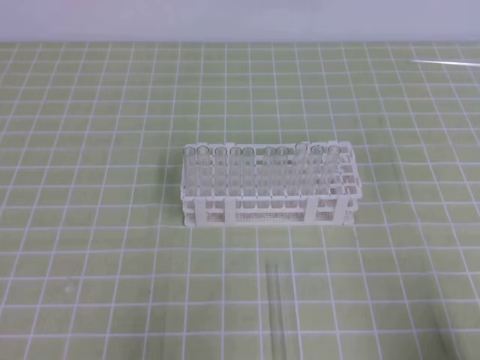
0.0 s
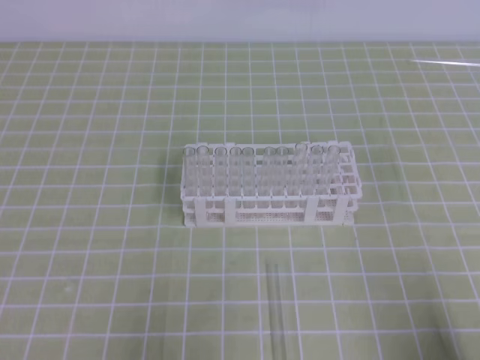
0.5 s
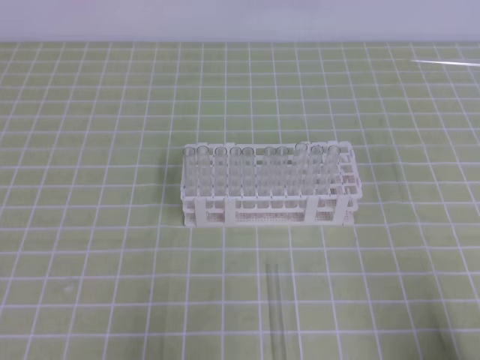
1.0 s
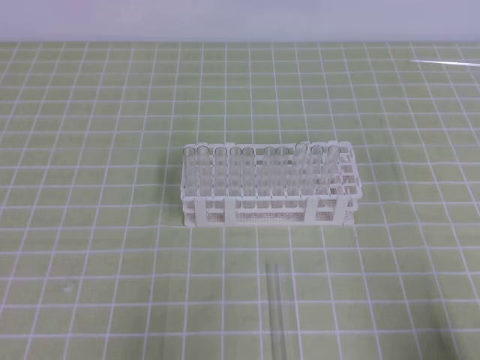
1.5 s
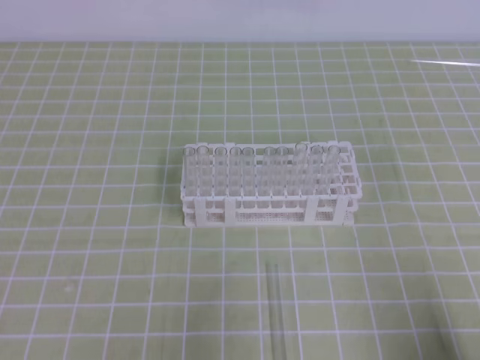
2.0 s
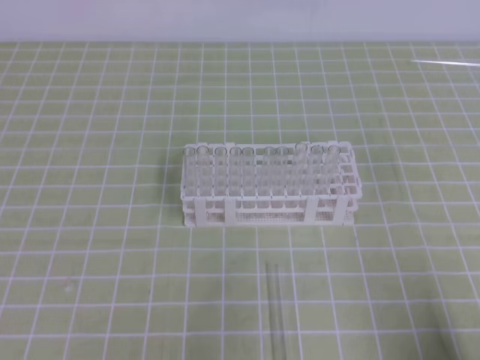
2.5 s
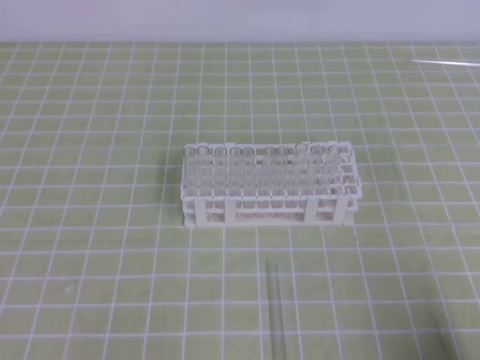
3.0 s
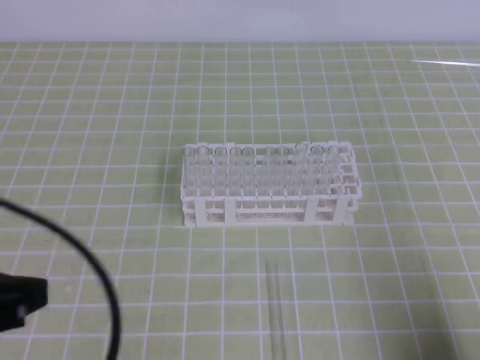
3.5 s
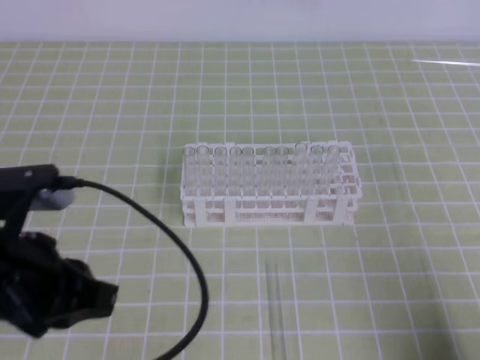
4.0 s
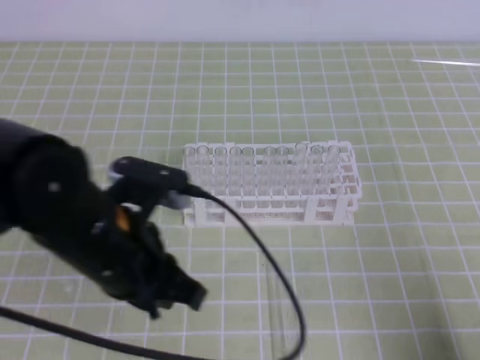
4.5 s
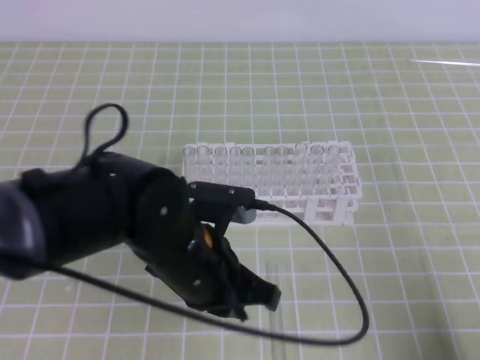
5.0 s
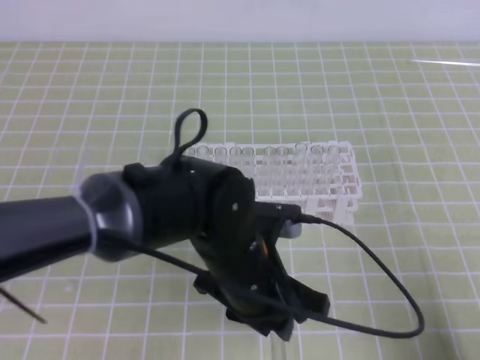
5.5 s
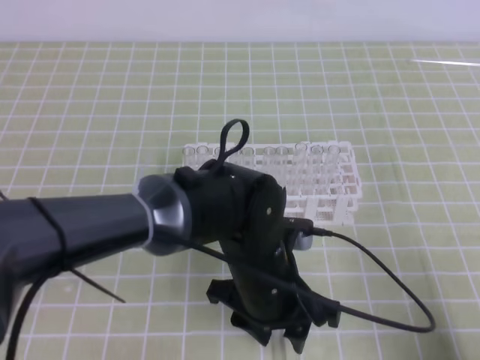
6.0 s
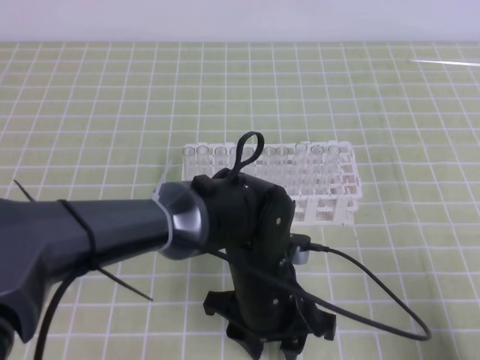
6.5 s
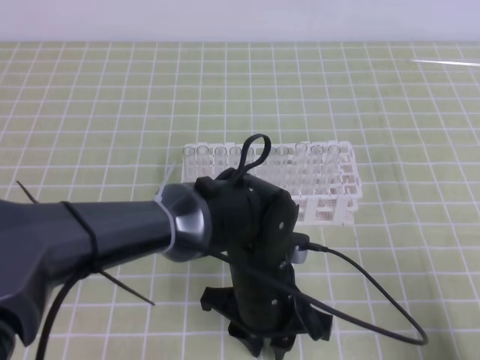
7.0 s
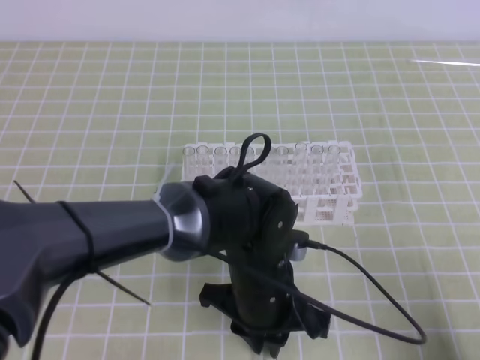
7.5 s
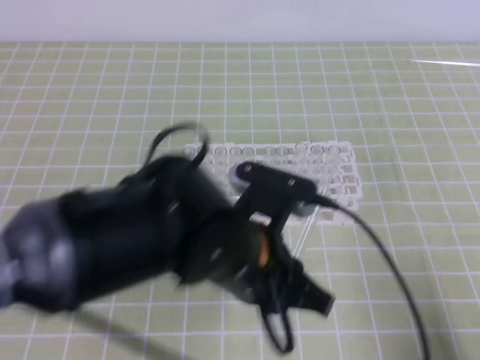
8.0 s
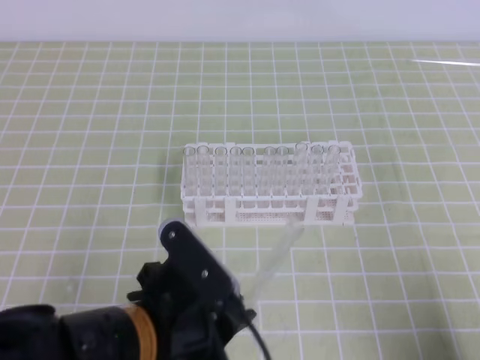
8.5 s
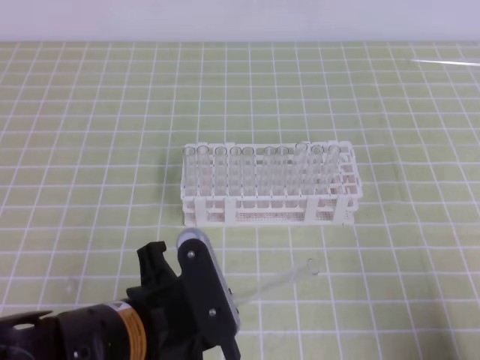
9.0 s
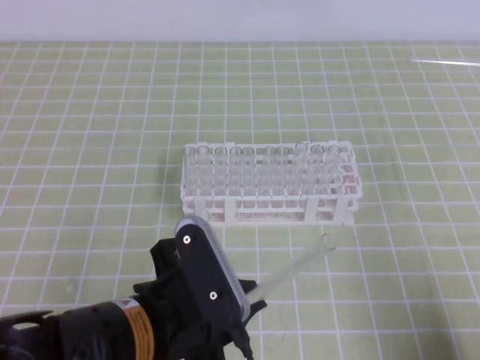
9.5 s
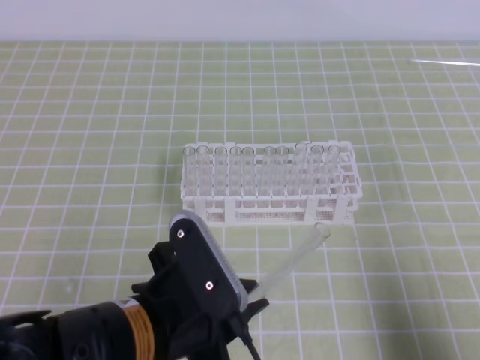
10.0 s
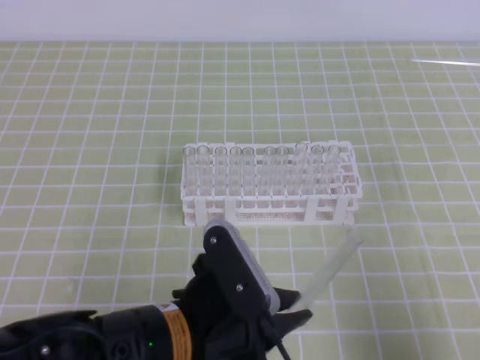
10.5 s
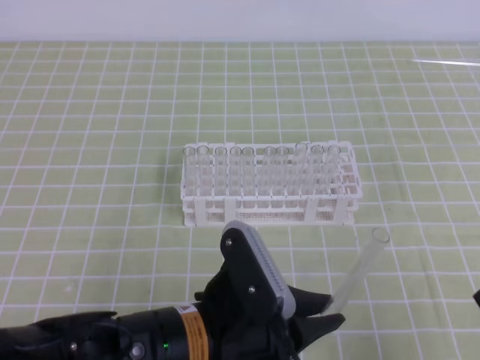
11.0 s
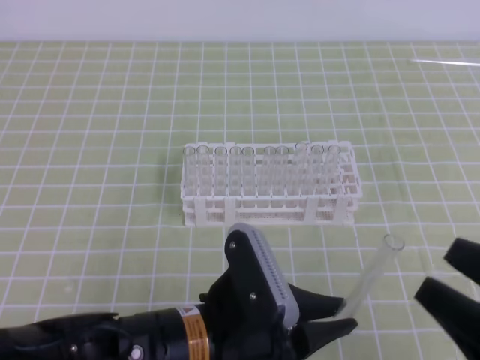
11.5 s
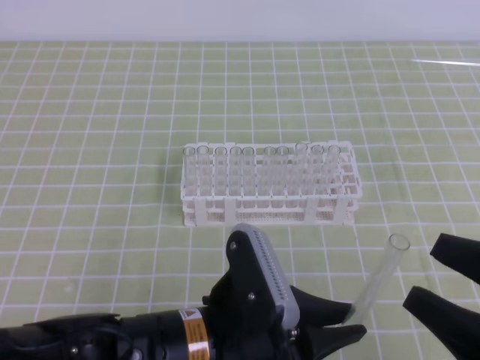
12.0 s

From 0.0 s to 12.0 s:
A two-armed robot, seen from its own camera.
From 2.0 s to 4.0 s: The left gripper is displaced upward, forward and to the right by approximately 15 cm.
From 4.0 s to 6.0 s: The left gripper is displaced to the right and downward by about 25 cm, and opens up.
From 6.0 s to 8.0 s: The left gripper shifts about 5 cm upward, and closes its fingers.
From 8.0 s to 10.0 s: The left gripper shifts some 10 cm to the left and backward.
From 10.0 s to 12.0 s: The right gripper shifts approximately 10 cm to the left and upward, and opens.

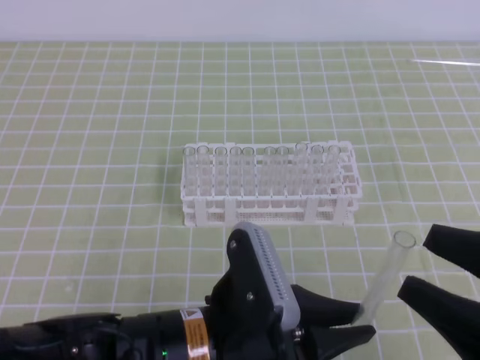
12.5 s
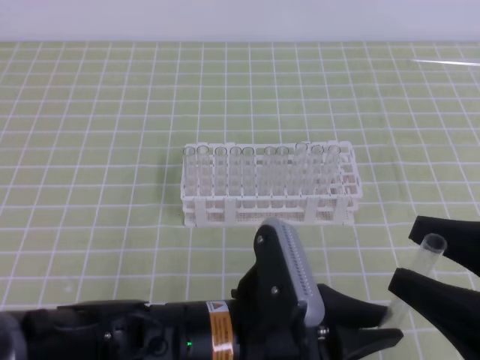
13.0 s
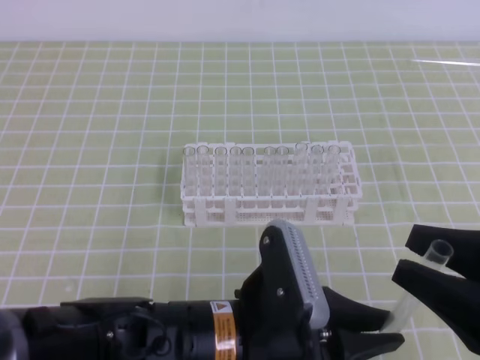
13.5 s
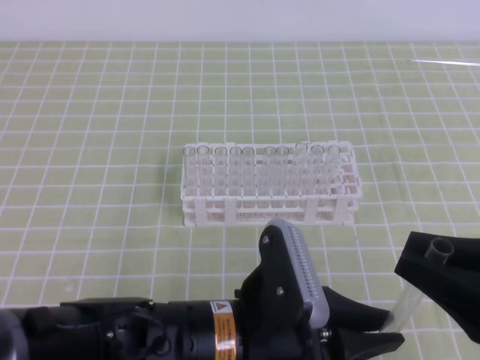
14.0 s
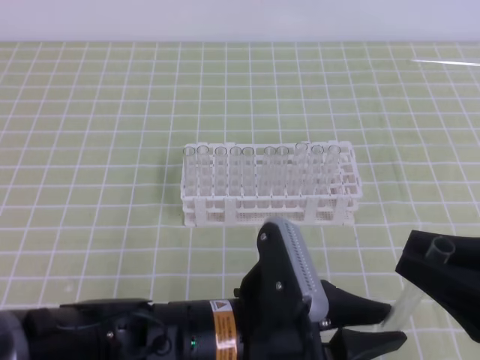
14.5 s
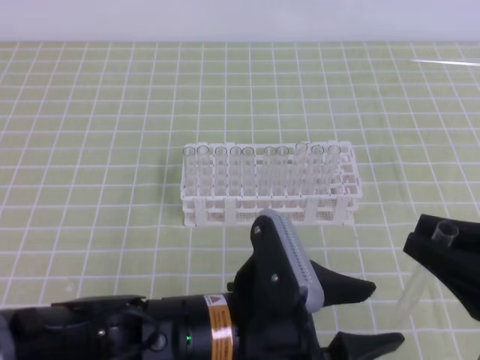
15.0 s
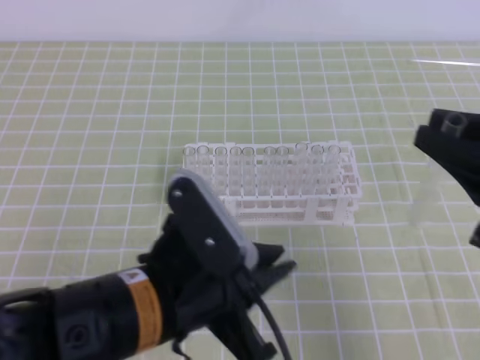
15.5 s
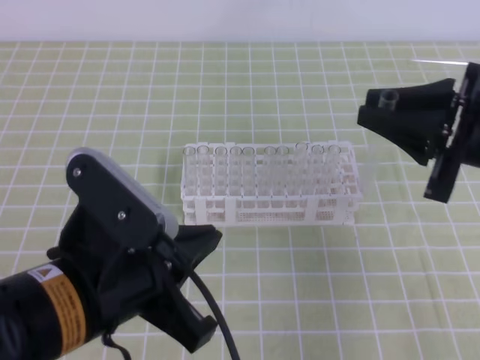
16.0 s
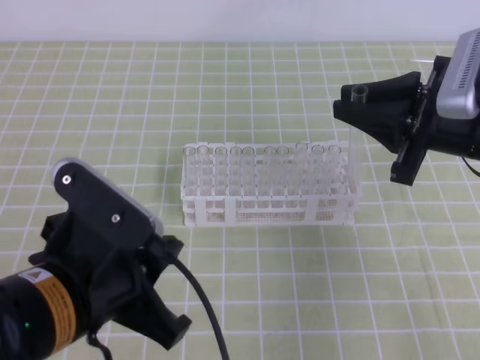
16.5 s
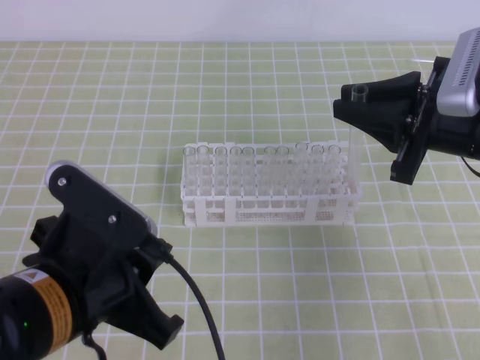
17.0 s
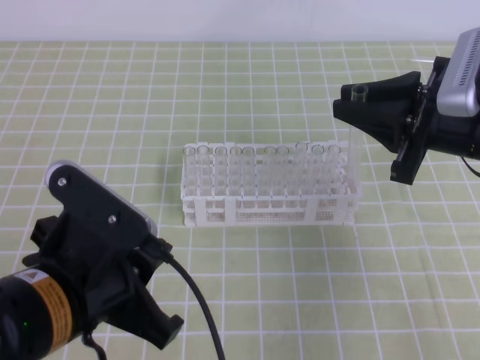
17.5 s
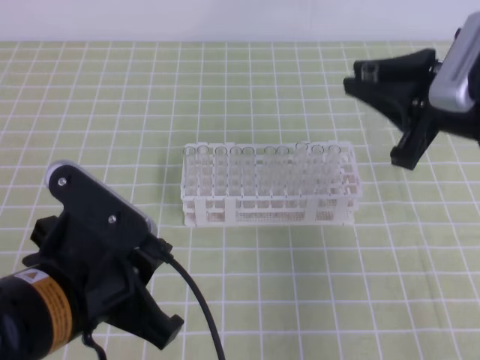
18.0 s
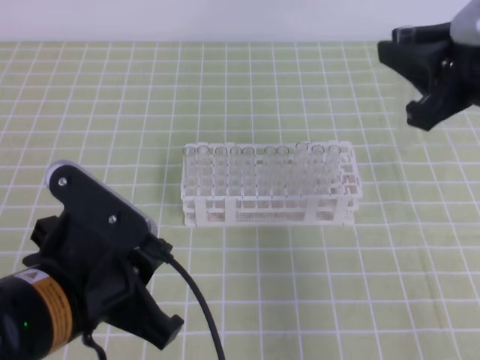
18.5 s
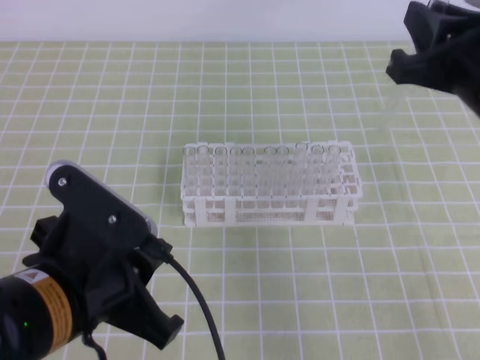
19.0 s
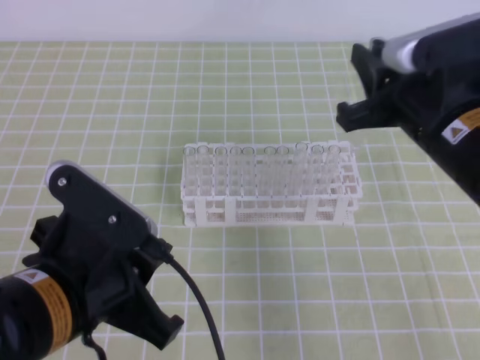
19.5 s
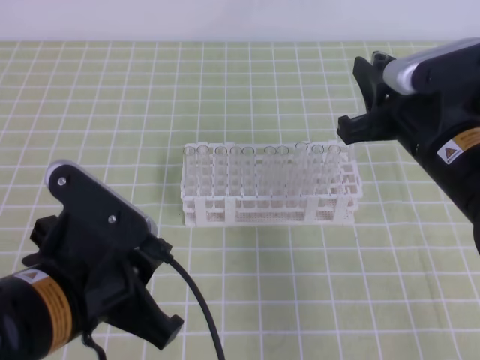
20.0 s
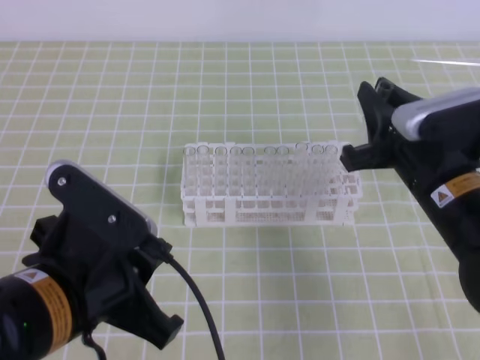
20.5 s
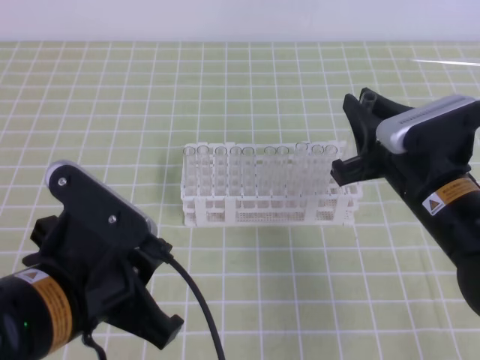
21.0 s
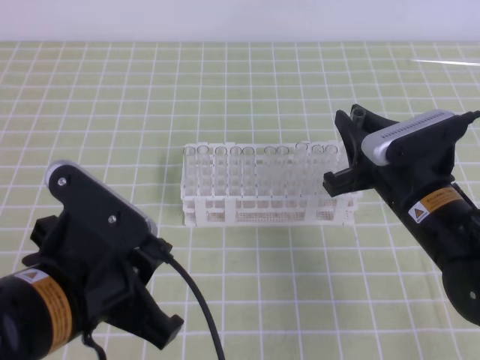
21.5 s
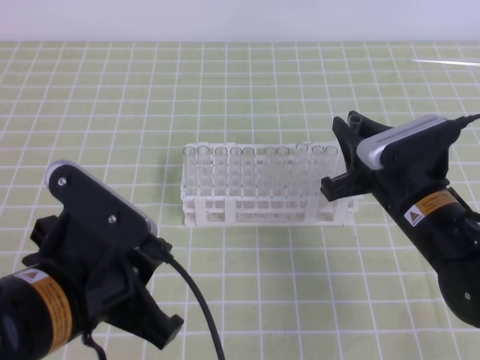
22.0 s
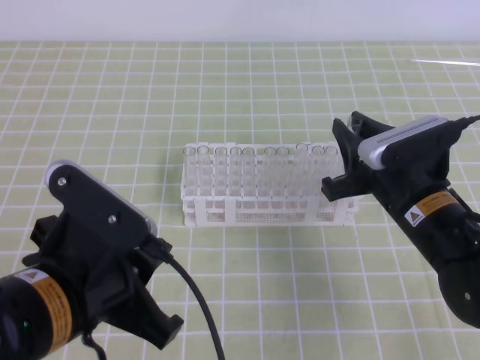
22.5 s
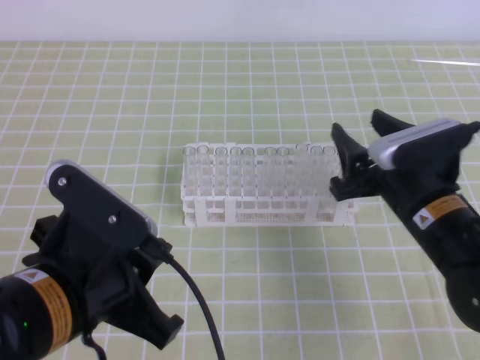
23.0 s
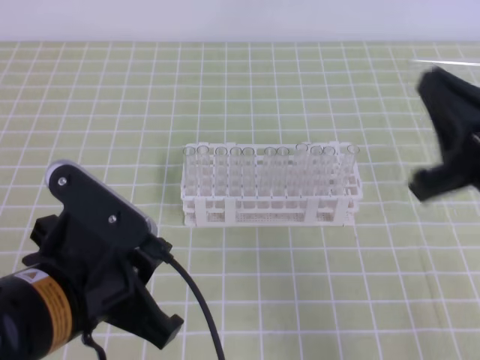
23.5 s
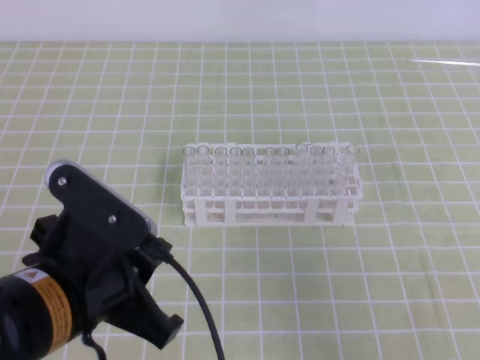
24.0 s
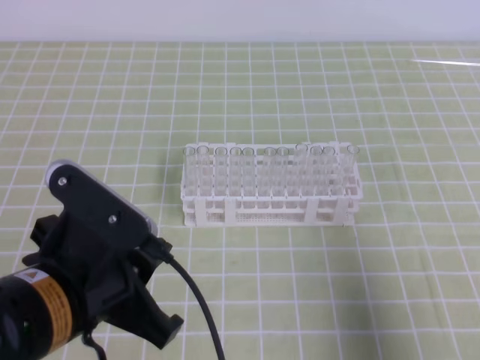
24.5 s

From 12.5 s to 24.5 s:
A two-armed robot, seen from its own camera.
From 12.5 s to 14.5 s: The right gripper closes its fingers; the left gripper opens.
From 14.5 s to 16.5 s: The left gripper goes about 15 cm to the left and upward, and closes its fingers. Meanwhile the right gripper heads forward, covering some 20 cm.
From 16.5 s to 18.5 s: The right gripper heads upward, covering some 5 cm.
From 18.5 s to 20.5 s: The right gripper goes some 10 cm downward.
From 20.5 s to 22.5 s: The grippers stay close to where they were, moving slightly.
From 22.5 s to 24.5 s: The right gripper goes approximately 25 cm backward, to the right and upward, and closes.

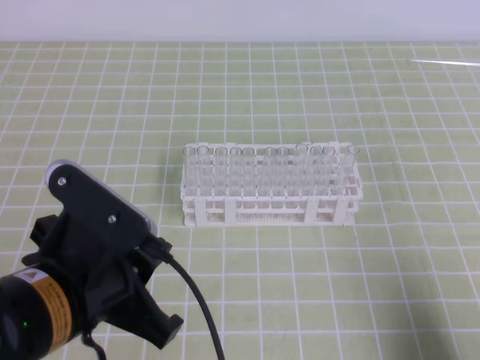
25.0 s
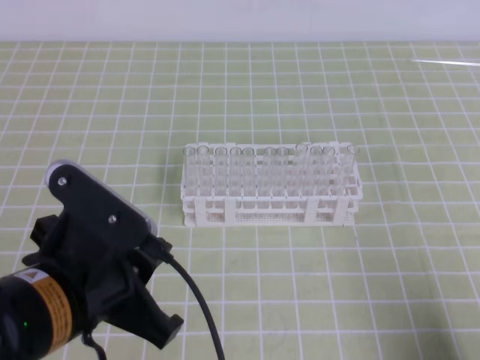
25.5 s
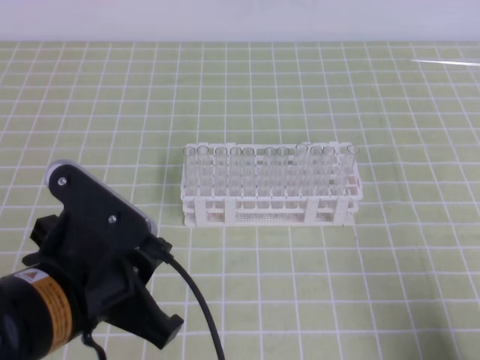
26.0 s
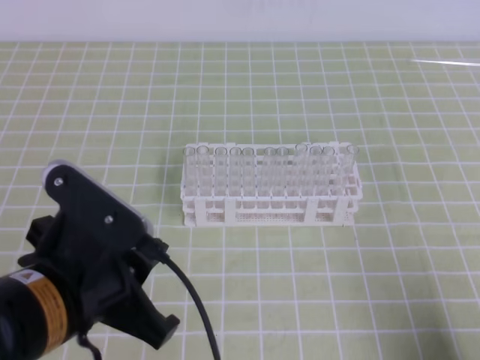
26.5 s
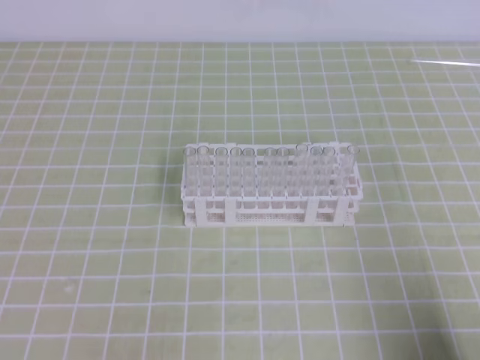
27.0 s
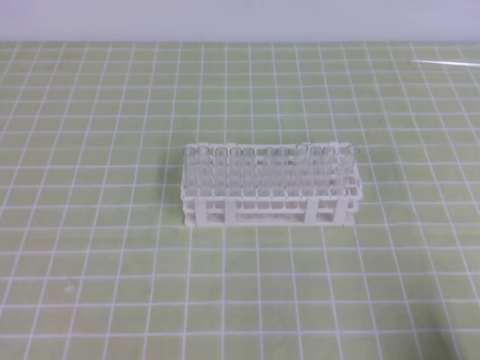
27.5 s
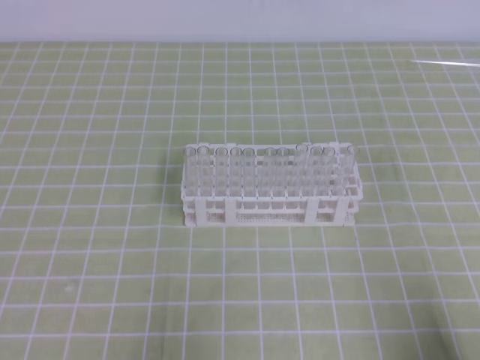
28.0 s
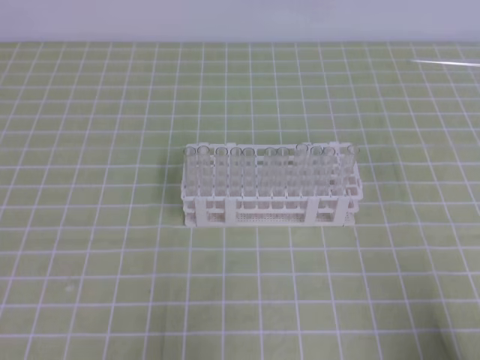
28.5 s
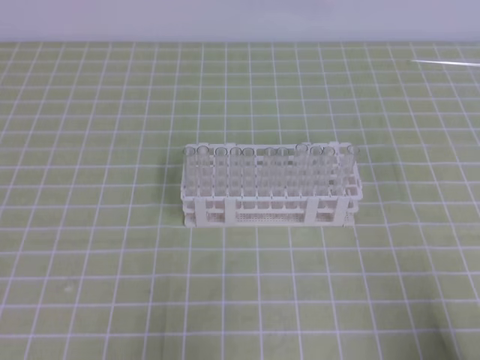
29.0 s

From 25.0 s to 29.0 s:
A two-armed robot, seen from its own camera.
From 25.0 s to 27.0 s: The left gripper is displaced to the left and upward by about 10 cm.
From 27.0 s to 29.0 s: The left gripper moves downward, roughly 15 cm.
